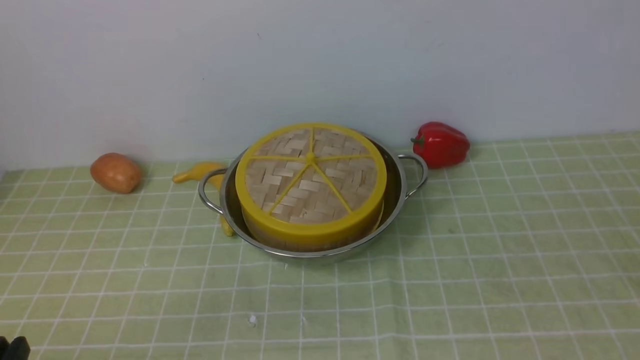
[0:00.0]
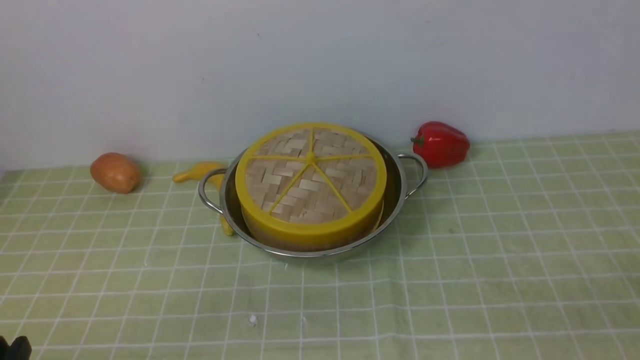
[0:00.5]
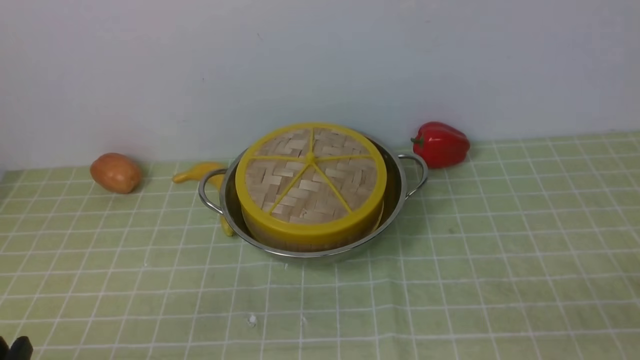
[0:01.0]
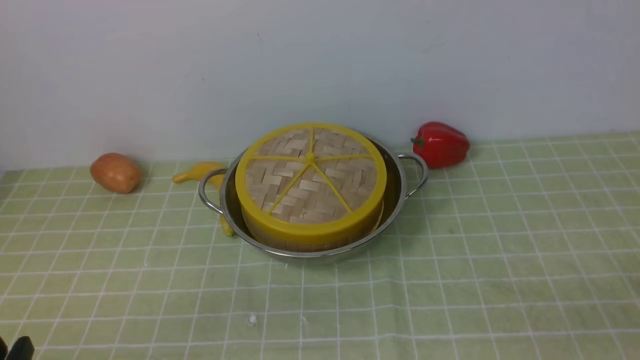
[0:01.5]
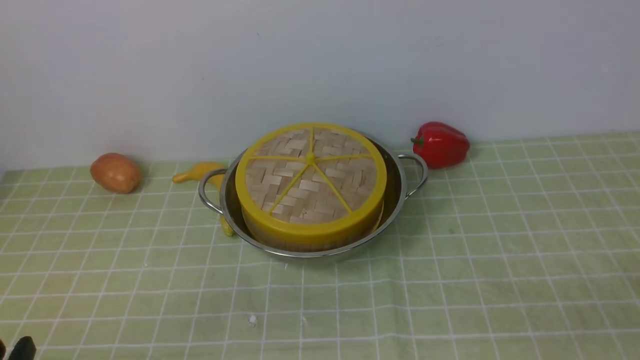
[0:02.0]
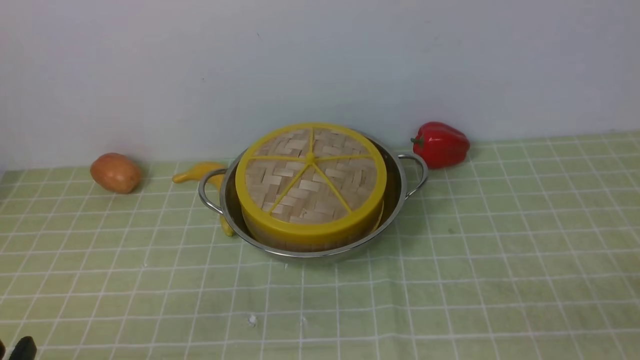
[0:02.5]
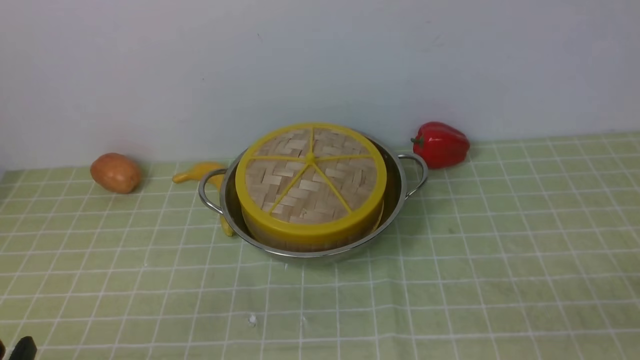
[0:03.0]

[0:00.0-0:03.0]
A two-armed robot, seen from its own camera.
Task of the whole recording: place the steamer in the pot on the green tablecloth, and put the lid on the steamer.
0:01.5 to 0:03.0: Both grippers stay put.

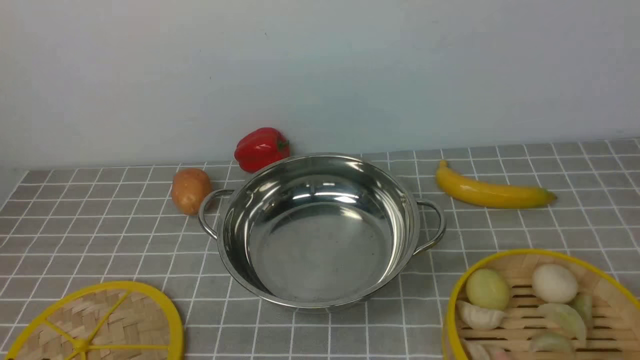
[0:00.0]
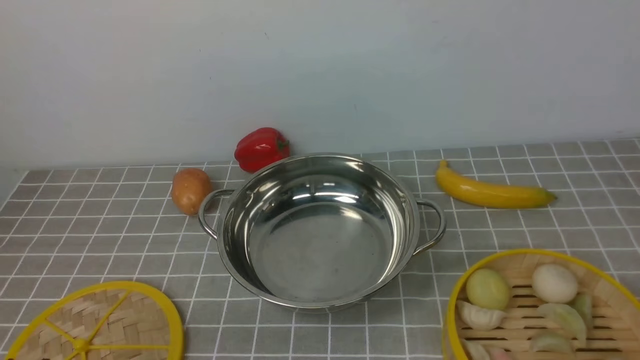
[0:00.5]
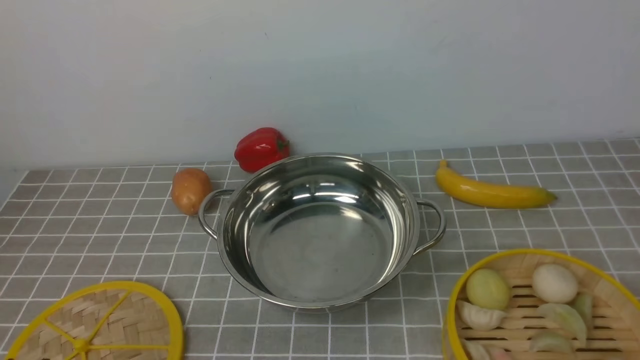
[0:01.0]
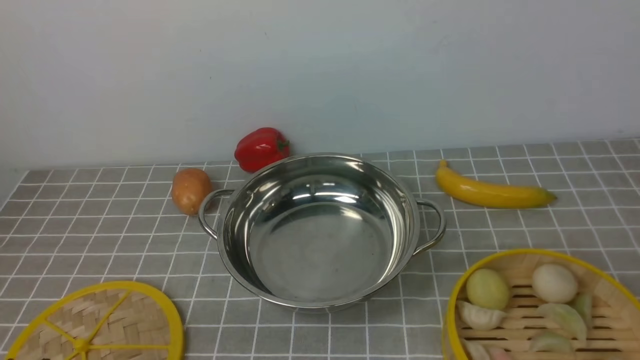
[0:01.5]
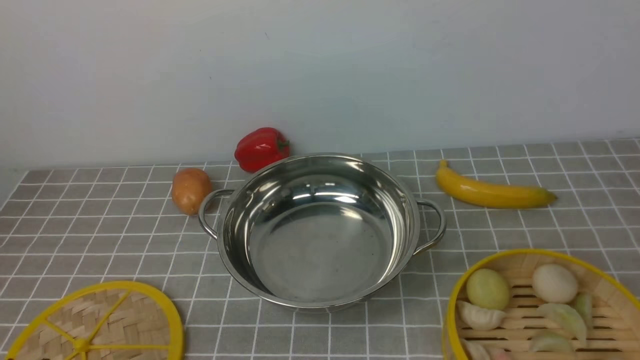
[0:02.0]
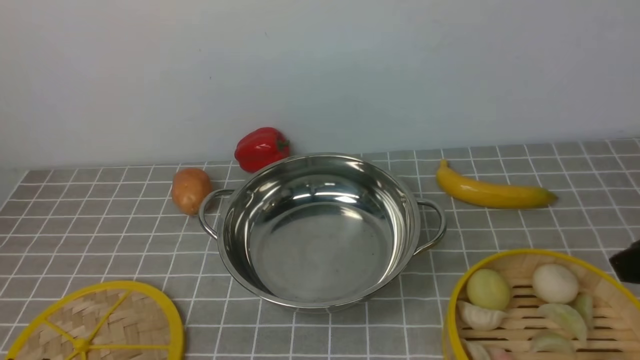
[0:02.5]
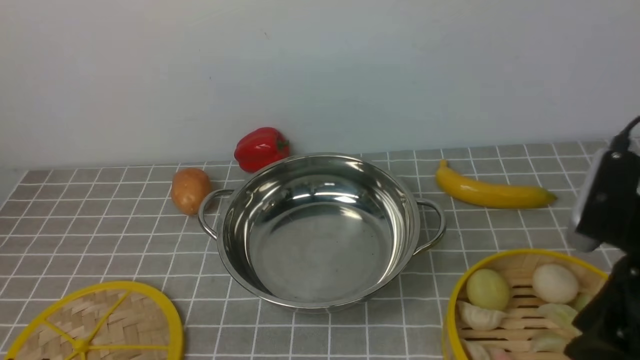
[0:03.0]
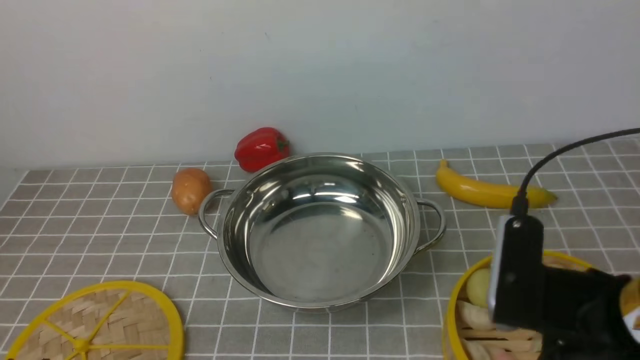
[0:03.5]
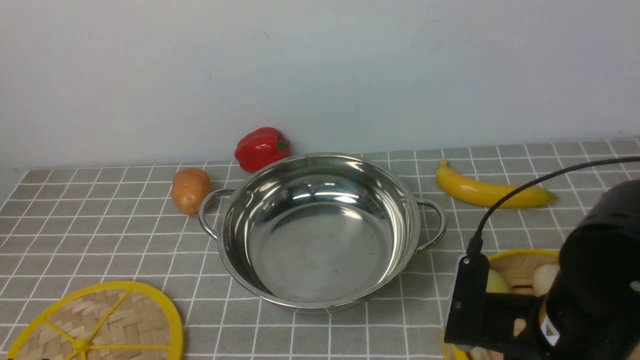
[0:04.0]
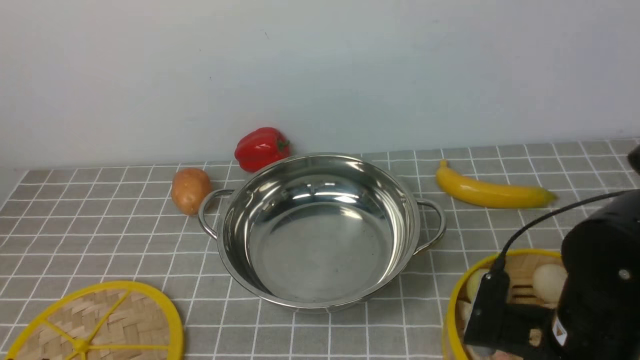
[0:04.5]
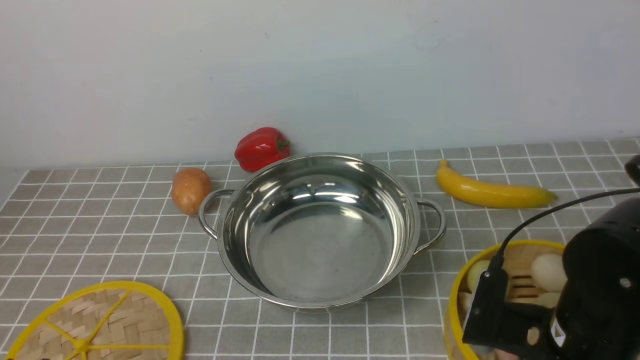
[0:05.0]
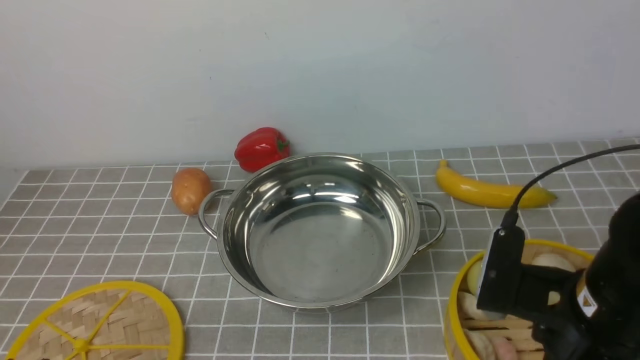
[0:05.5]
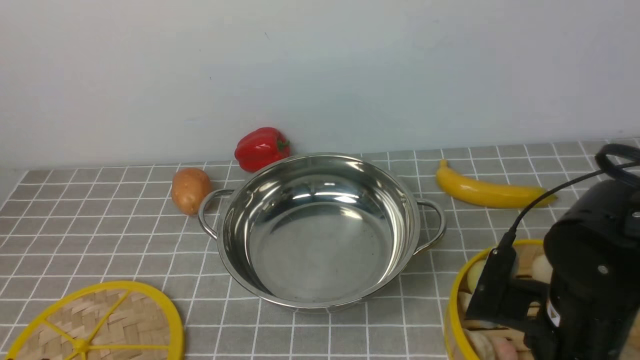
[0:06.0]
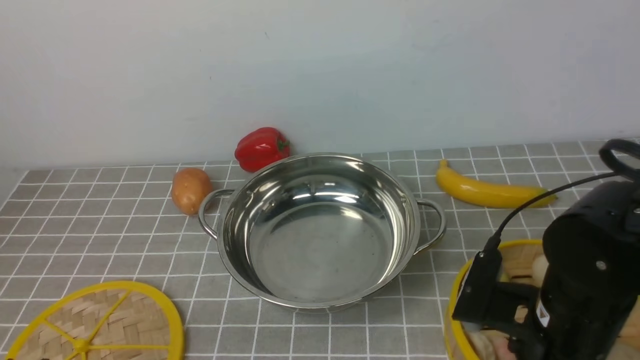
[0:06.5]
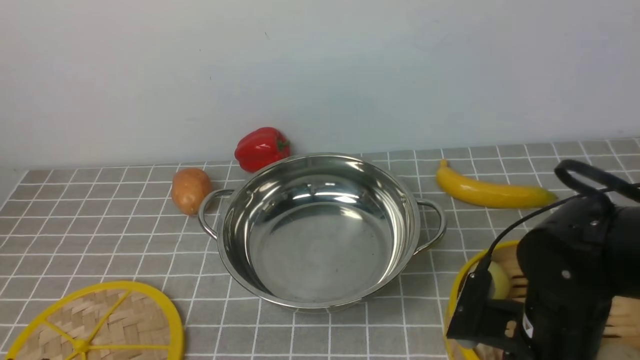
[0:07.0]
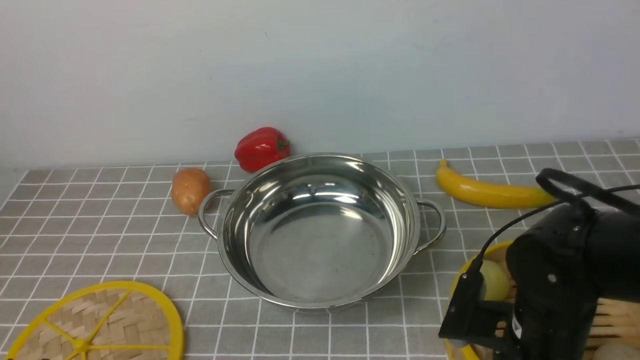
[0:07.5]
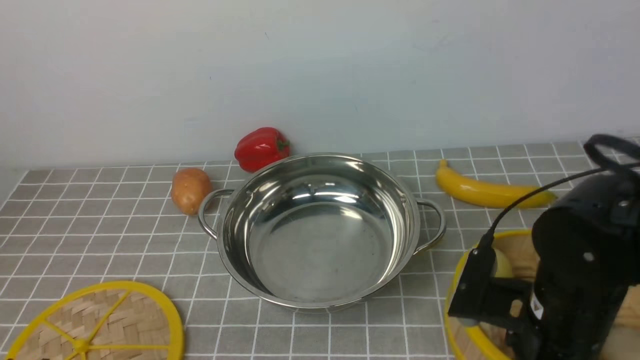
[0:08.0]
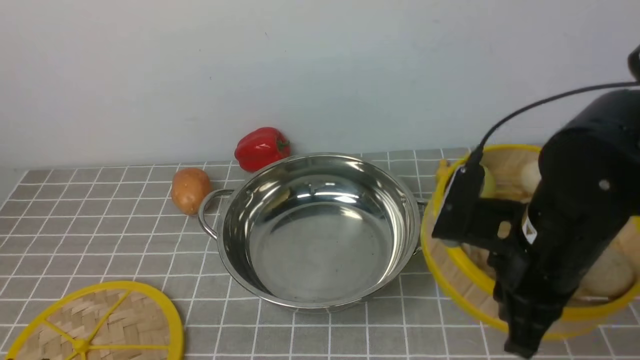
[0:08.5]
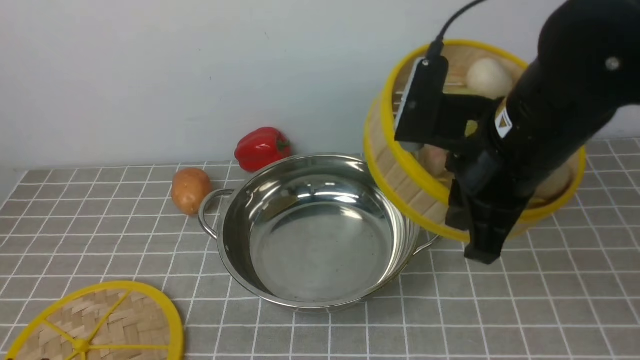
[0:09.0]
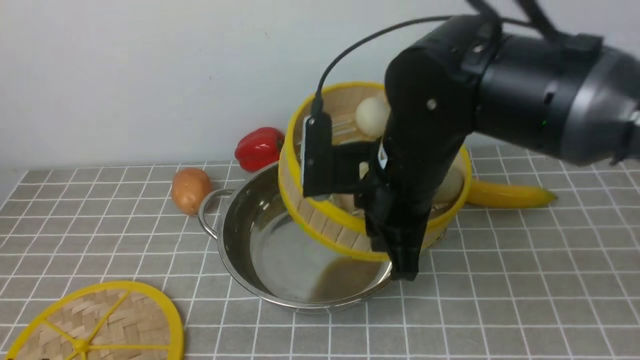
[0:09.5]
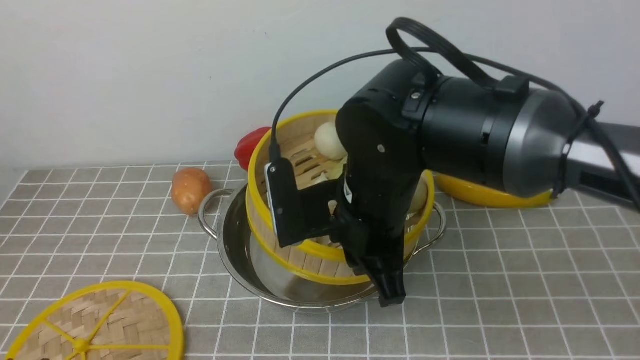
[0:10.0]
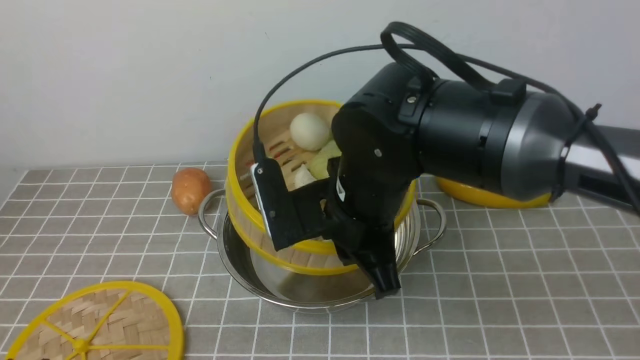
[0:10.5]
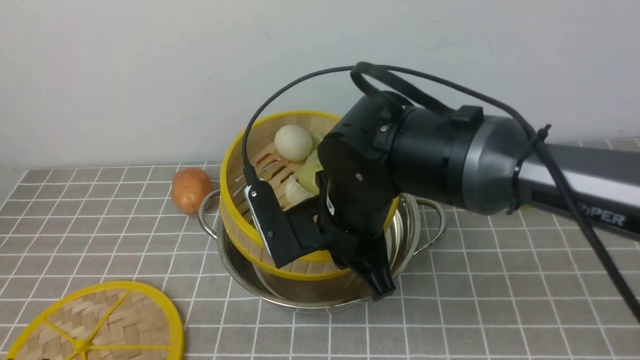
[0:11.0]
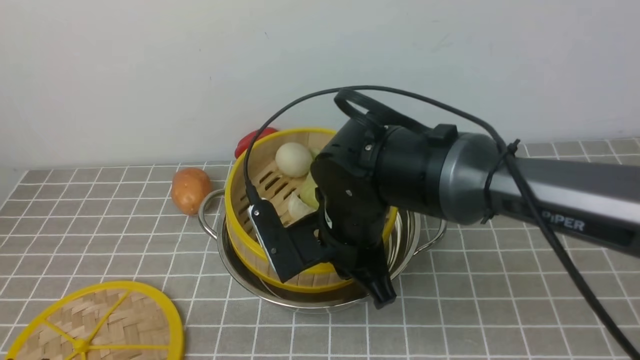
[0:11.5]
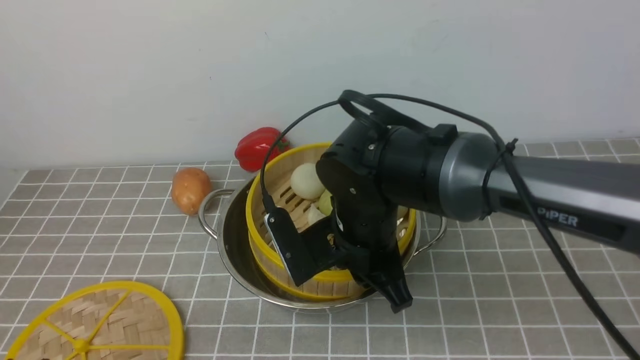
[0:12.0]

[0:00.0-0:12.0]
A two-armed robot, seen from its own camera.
Task of the whole recording: place the steamer in the pot on the grey tablecloth, and put the lid on the steamer.
Step, 0:00.0 to 0:08.0: use the right arm to lift the steamer closest to it.
0:02.0 to 0:04.0: The right gripper moves to the left, downward and forward, approximately 15 cm.
0:04.0 to 0:06.0: The right gripper opens up.
0:06.0 to 0:08.0: The right gripper closes its fingers.
0:08.0 to 0:10.0: The right gripper travels to the left, forward and upward by some 15 cm.
0:10.0 to 0:12.0: The right gripper heads downward, covering some 5 cm.

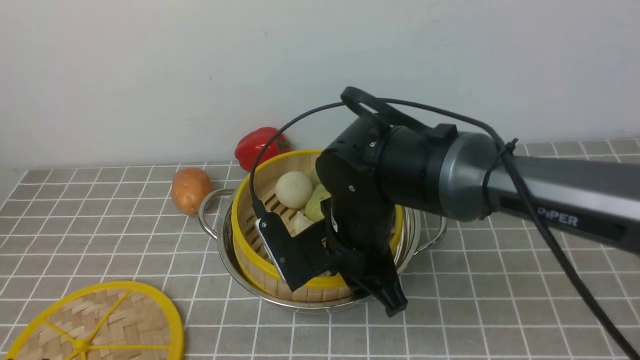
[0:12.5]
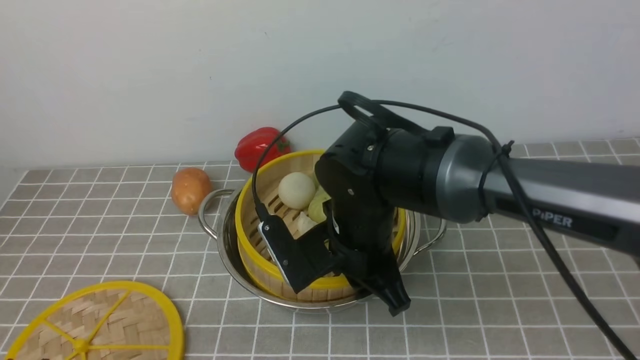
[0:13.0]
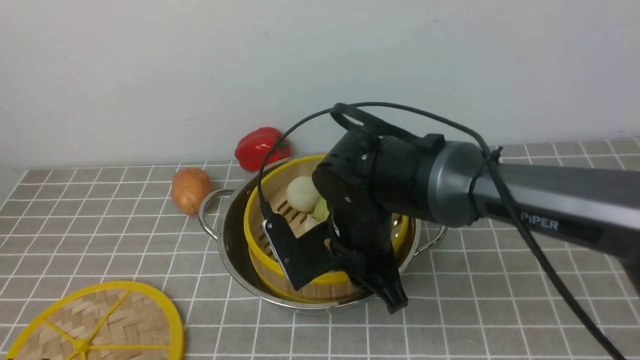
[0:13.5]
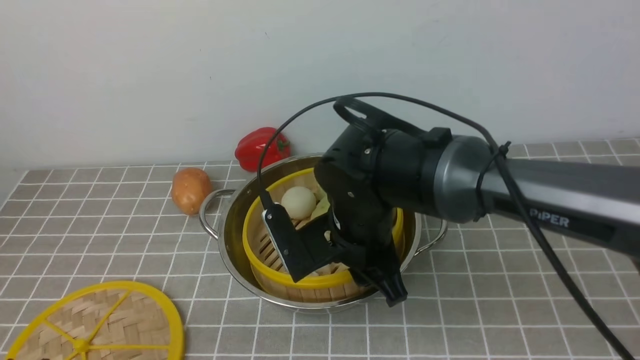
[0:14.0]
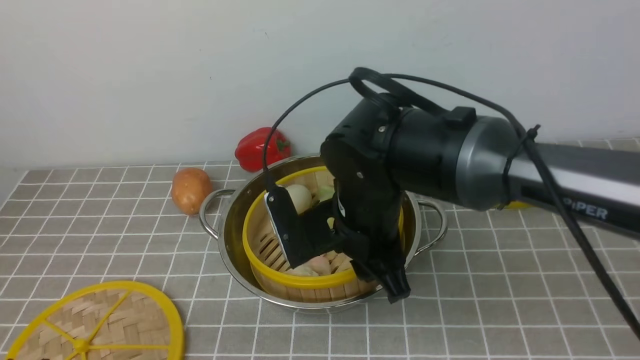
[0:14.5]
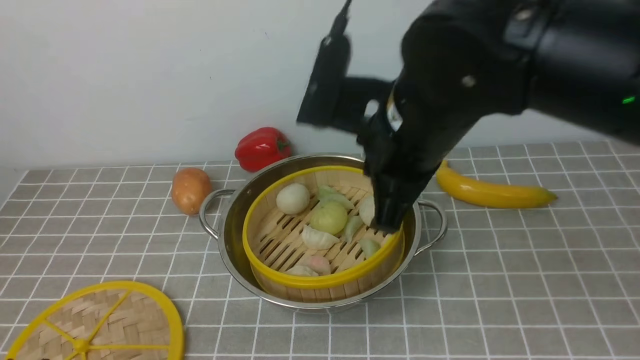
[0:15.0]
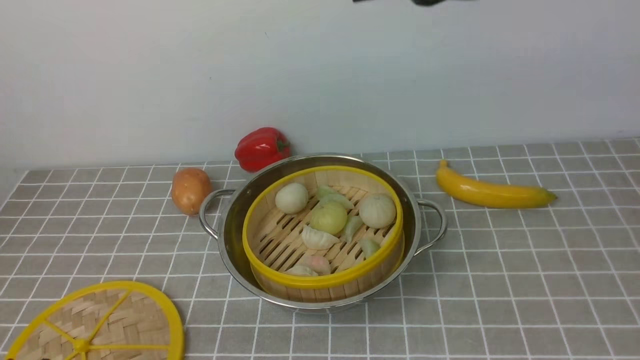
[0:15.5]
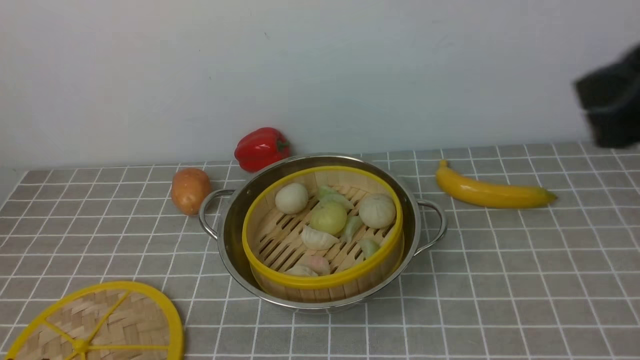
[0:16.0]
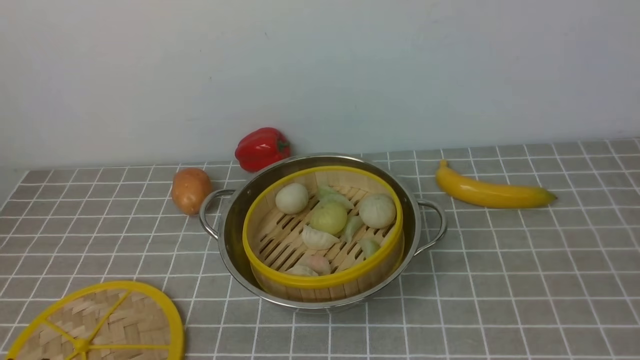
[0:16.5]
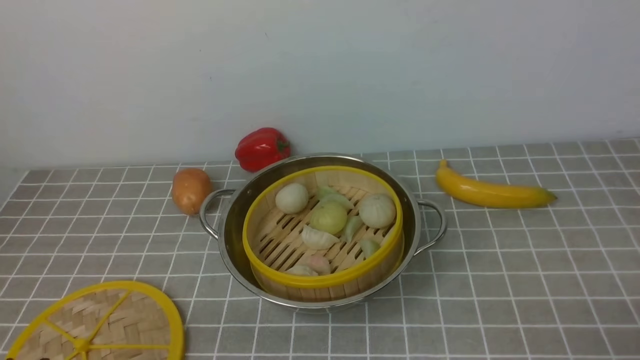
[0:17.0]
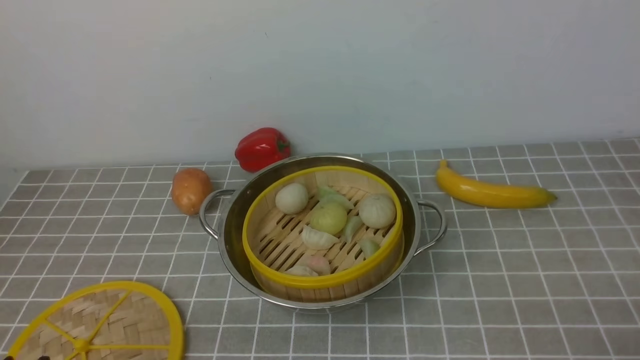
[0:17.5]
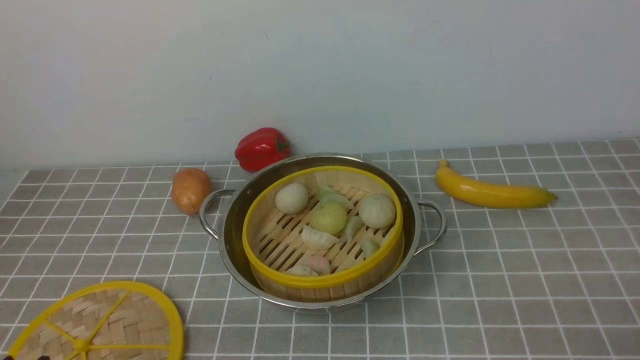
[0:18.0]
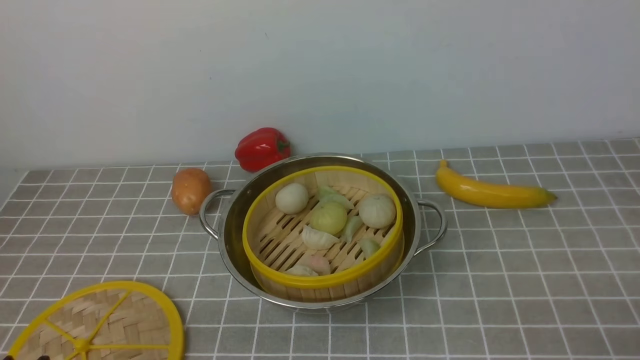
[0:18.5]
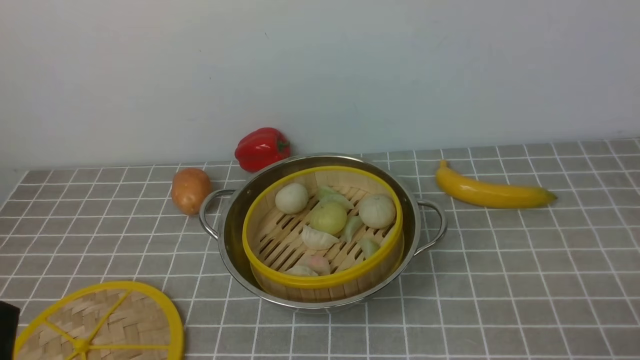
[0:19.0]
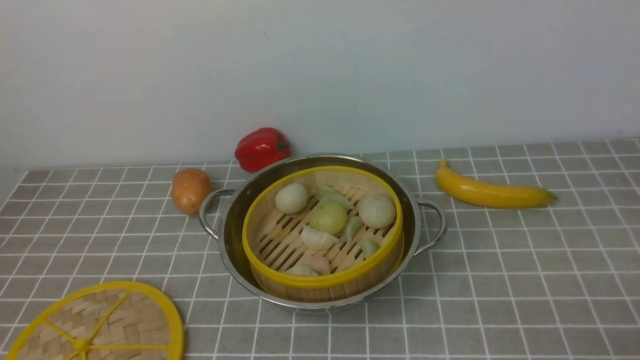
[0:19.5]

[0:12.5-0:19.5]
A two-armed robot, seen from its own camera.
Task of the whole recording: place the steamer in the pot on the grey tablecloth, and put the lid on the steamer.
Step, 0:12.5 to 0:14.5: use the right arm to put the steamer into the iron steamer pot in the middle.
0:12.5 to 0:14.5: The right gripper opens up.
0:14.5 to 0:16.0: The right gripper is displaced to the right, upward and backward by approximately 30 cm, and closes its fingers.
0:16.0 to 0:17.5: The right gripper goes some 25 cm downward and backward, and opens up.
